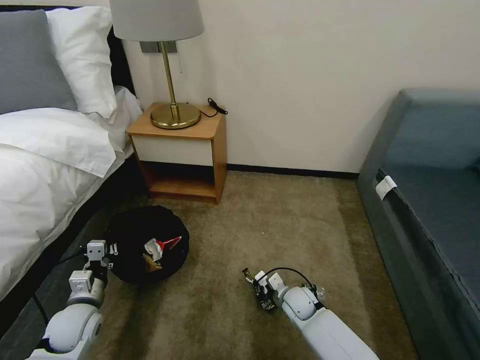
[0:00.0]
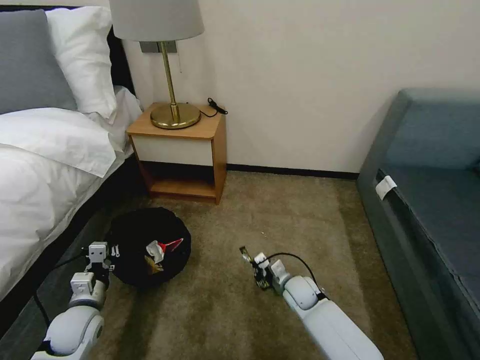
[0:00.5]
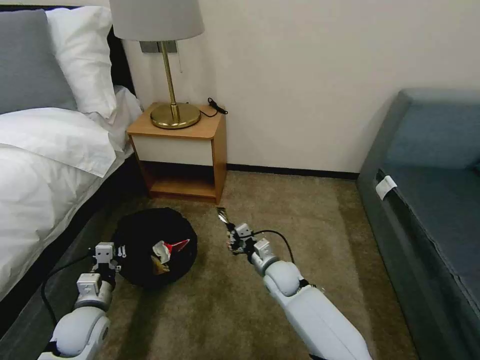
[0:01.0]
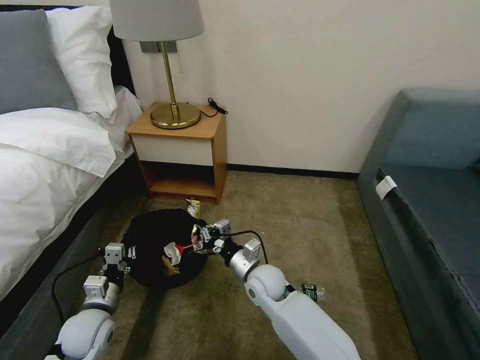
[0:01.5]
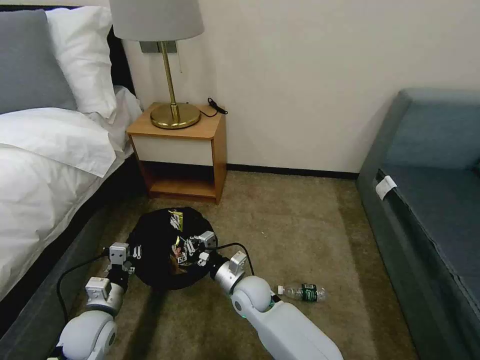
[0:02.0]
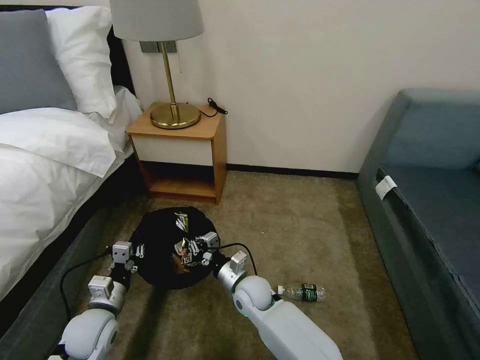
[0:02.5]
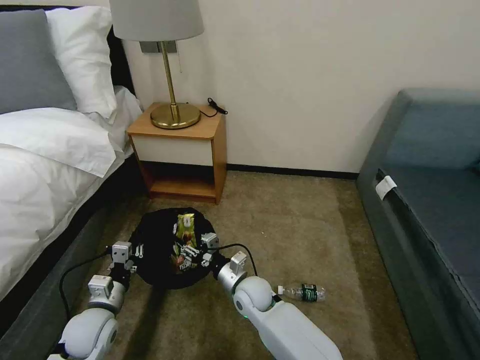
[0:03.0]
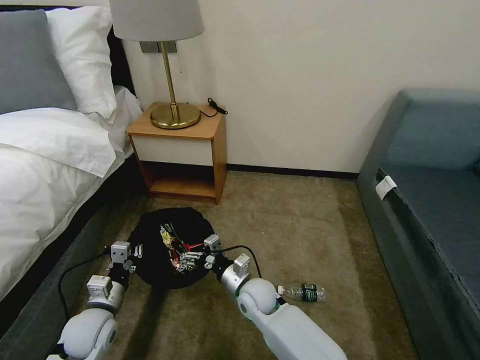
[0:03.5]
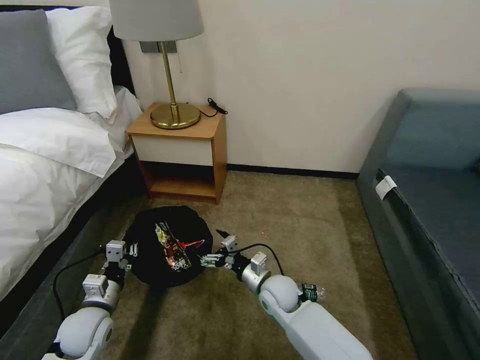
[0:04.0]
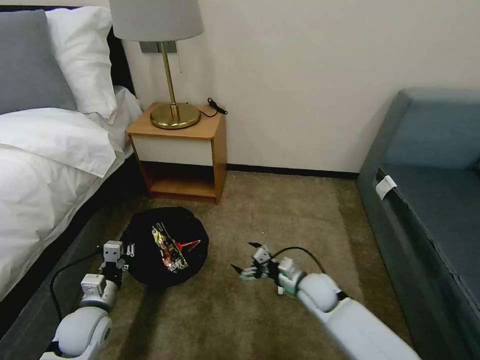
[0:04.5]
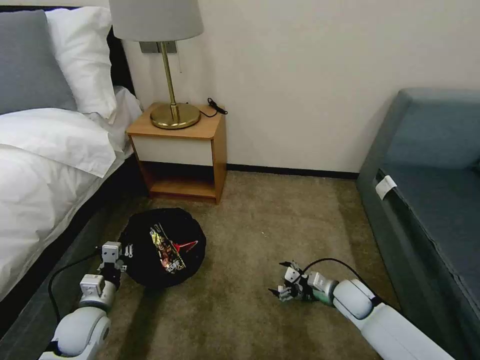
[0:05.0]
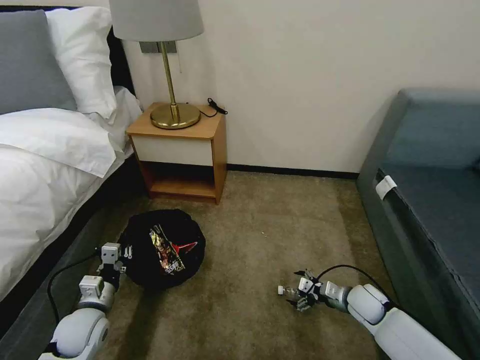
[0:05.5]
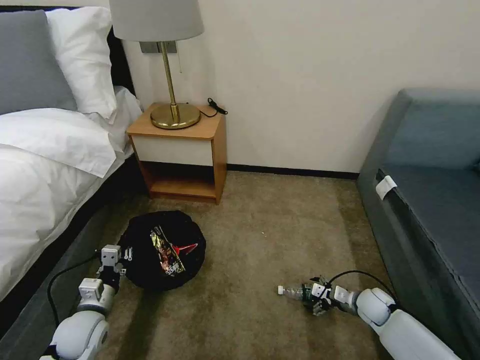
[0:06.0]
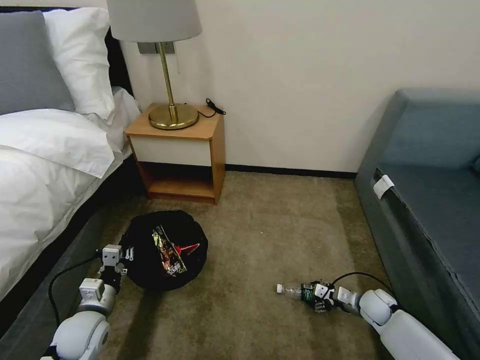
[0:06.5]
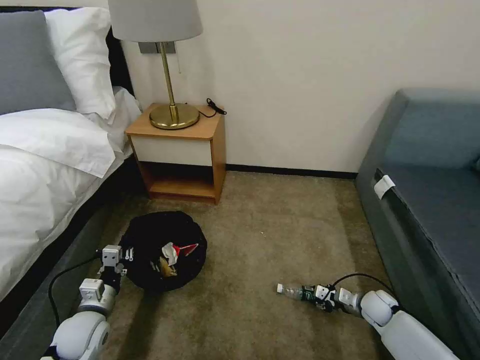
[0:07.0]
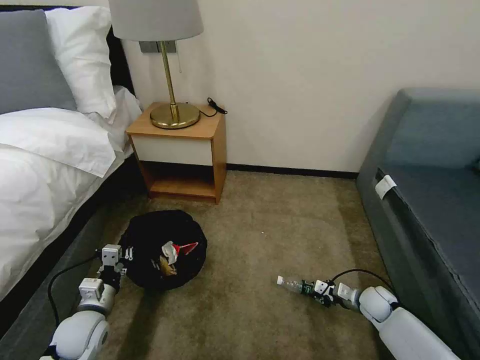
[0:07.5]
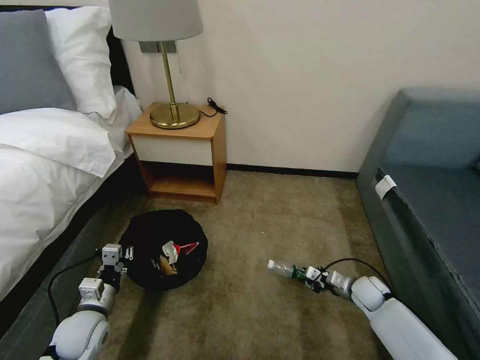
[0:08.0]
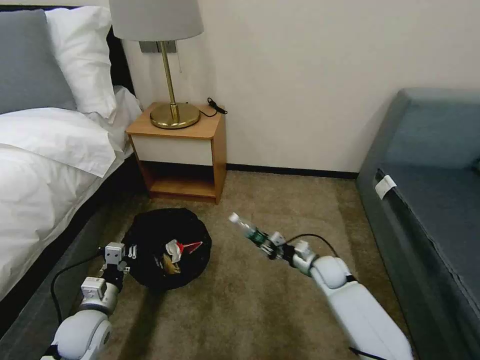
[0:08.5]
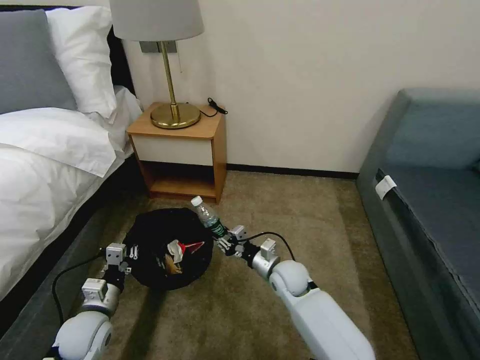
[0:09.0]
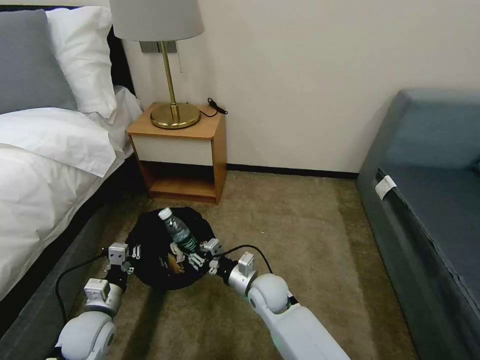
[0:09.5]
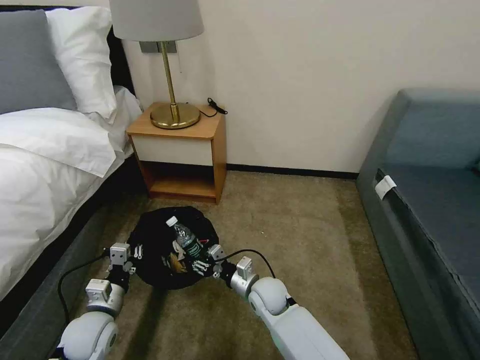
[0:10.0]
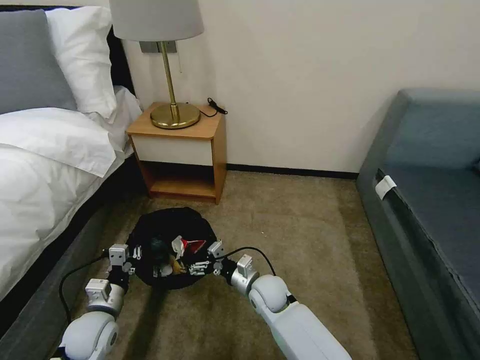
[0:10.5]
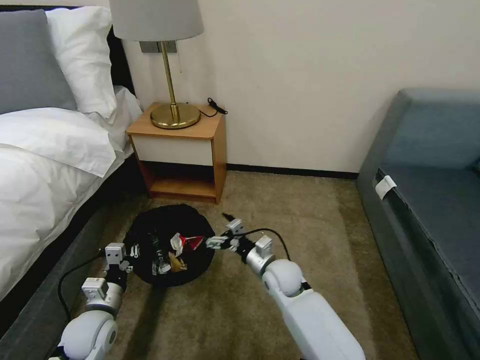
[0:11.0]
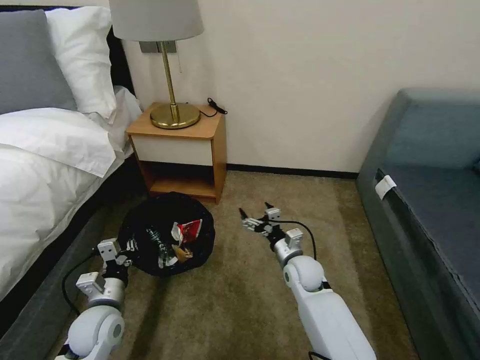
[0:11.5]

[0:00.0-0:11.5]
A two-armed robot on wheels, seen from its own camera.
Task of the whole recording: Pick up the trash bin, then pick up the garbage on the floor and place it into the trash bin.
0:00.0 to 0:02.0: The right gripper shifts approximately 20 cm to the left and upward.
0:02.0 to 0:04.0: The right gripper goes about 5 cm to the right, and opens up.
0:04.0 to 0:06.0: The right gripper travels to the right by some 30 cm.
0:06.0 to 0:07.5: The right gripper closes.
0:07.5 to 0:09.5: The right gripper goes some 35 cm to the left.
0:09.5 to 0:11.5: The right gripper heads to the right, covering about 10 cm, and opens up.

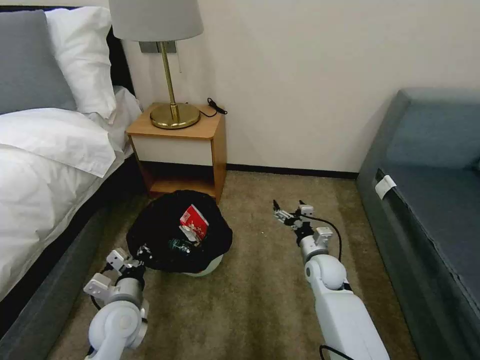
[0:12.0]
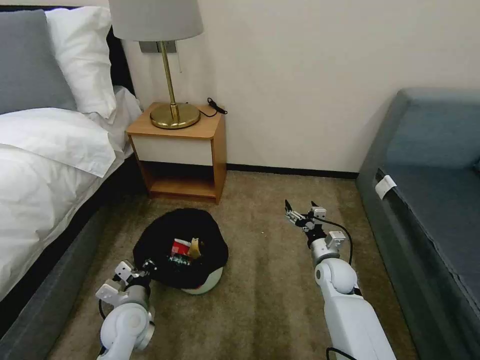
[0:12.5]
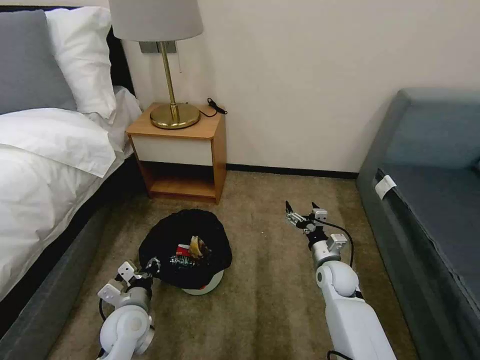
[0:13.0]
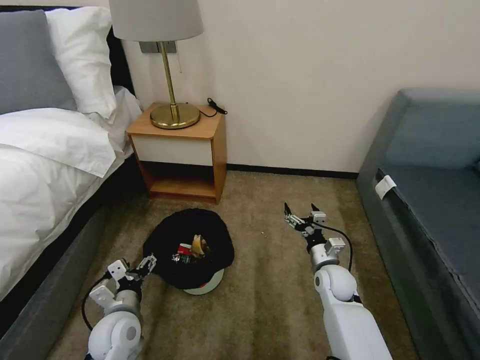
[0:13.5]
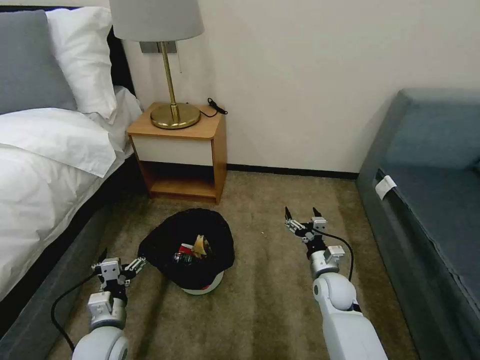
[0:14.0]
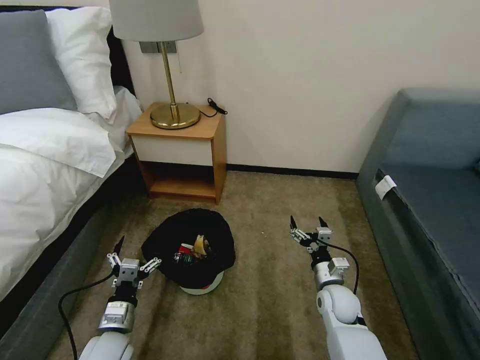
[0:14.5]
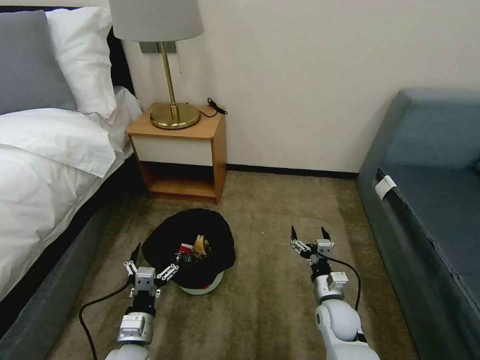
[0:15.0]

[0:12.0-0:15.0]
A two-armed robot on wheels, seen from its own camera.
Task of the whole recording: Pick up the trash bin, then pick up the garbage on the floor and place it into the trash bin.
0:12.0 to 0:13.5: The left gripper opens up.
0:13.5 to 0:15.0: Both grippers move backward, roughly 5 cm.

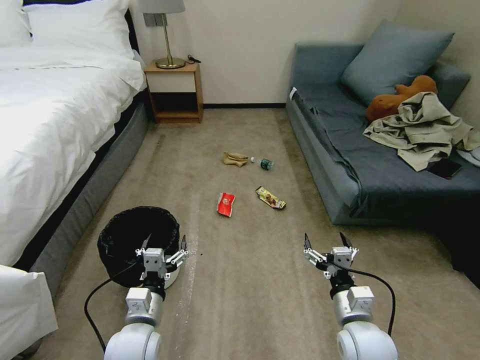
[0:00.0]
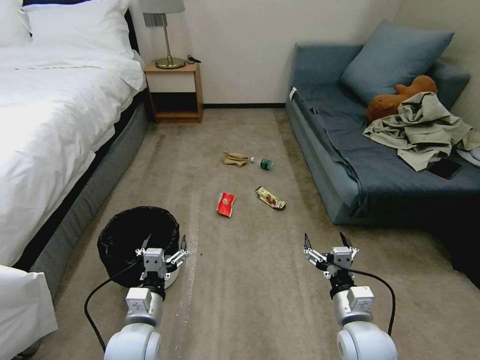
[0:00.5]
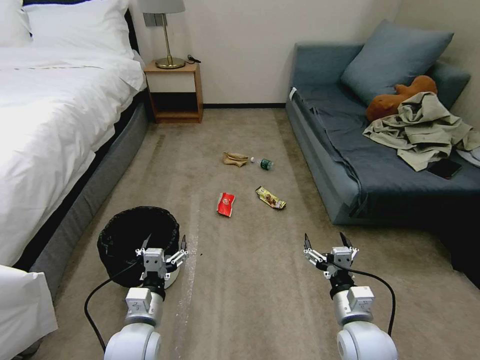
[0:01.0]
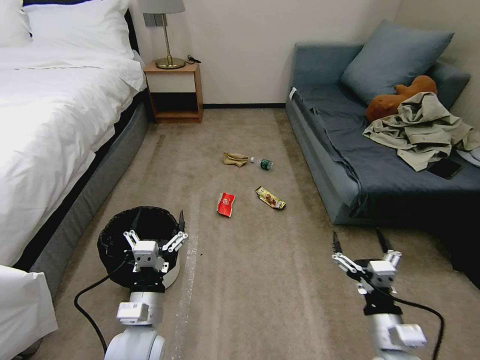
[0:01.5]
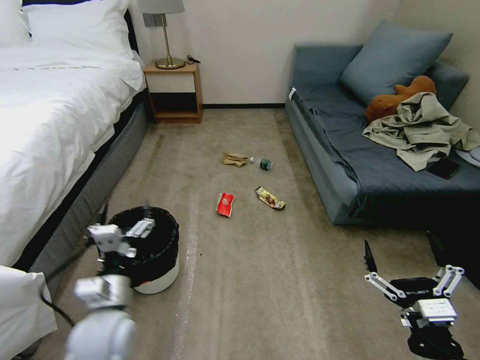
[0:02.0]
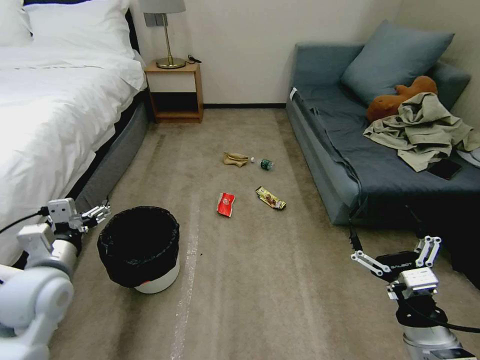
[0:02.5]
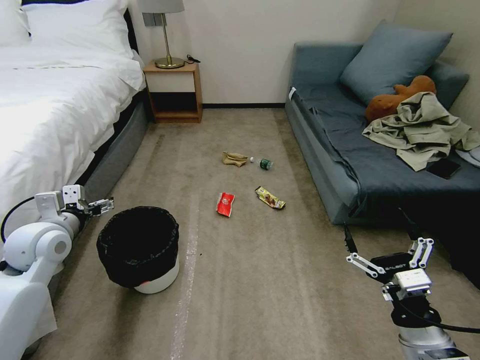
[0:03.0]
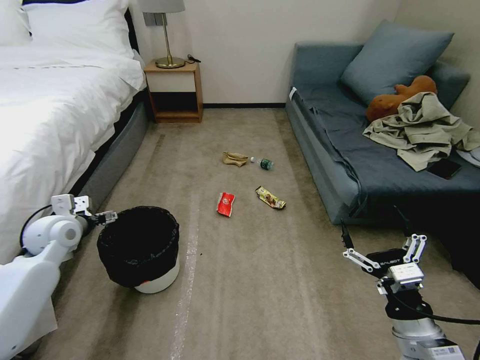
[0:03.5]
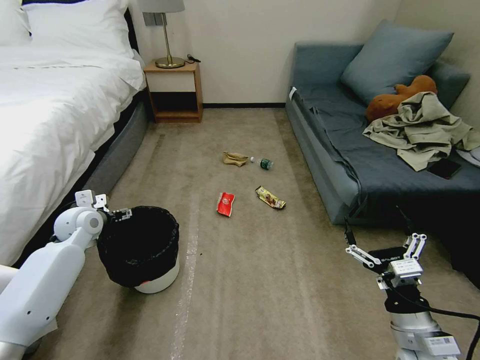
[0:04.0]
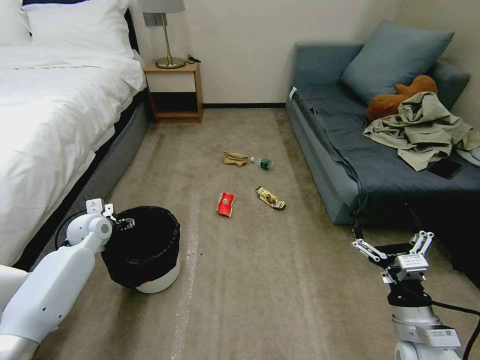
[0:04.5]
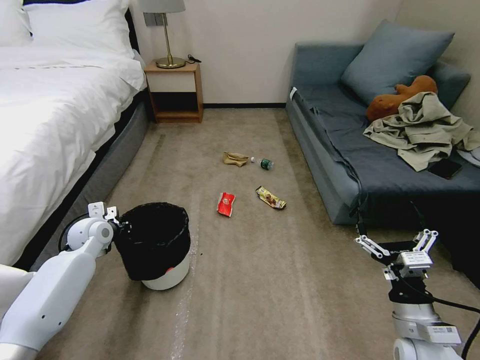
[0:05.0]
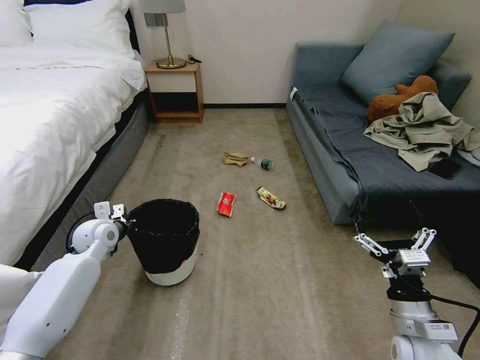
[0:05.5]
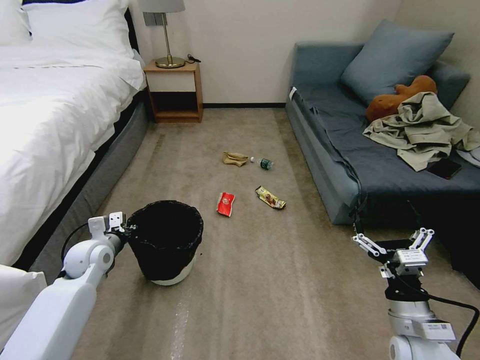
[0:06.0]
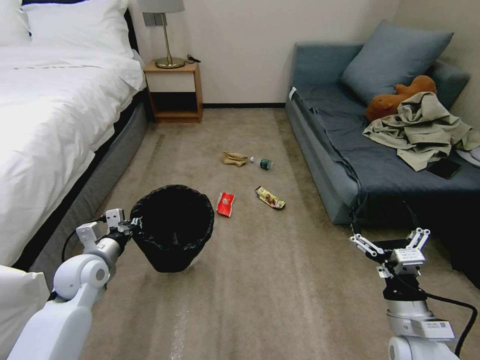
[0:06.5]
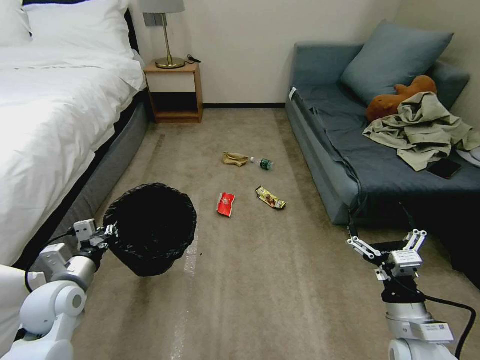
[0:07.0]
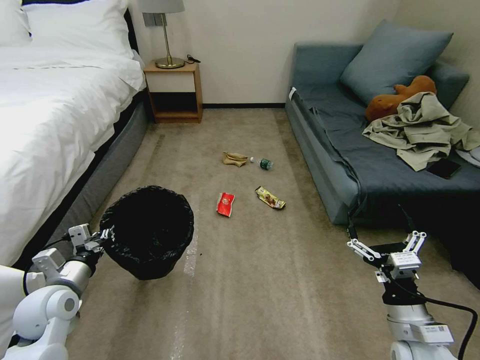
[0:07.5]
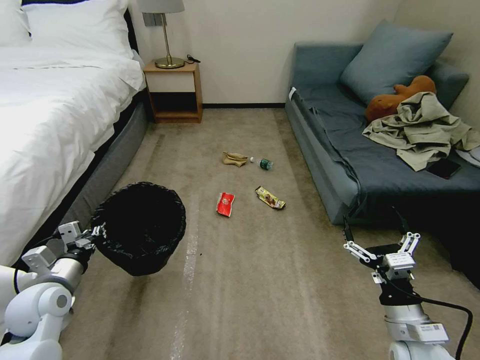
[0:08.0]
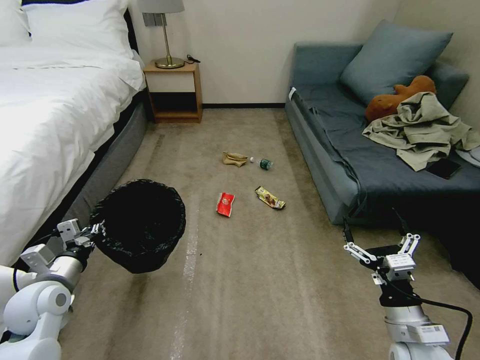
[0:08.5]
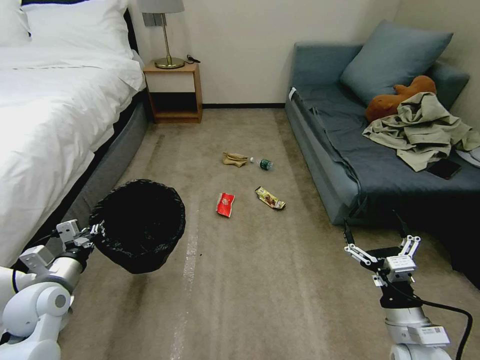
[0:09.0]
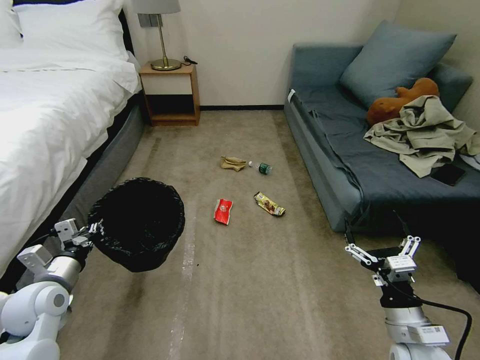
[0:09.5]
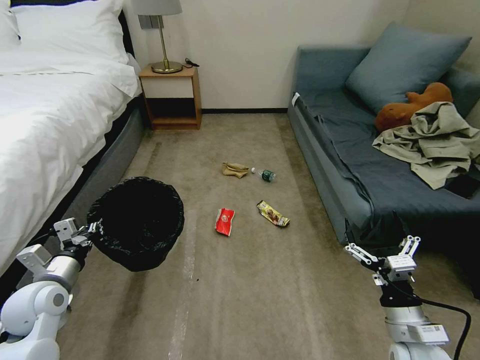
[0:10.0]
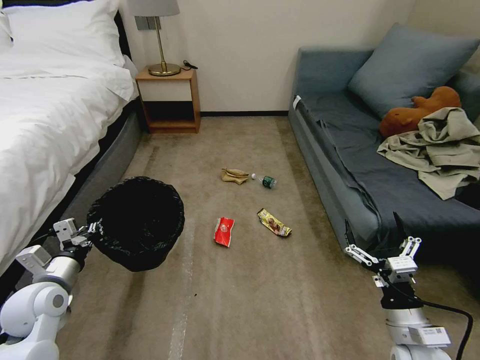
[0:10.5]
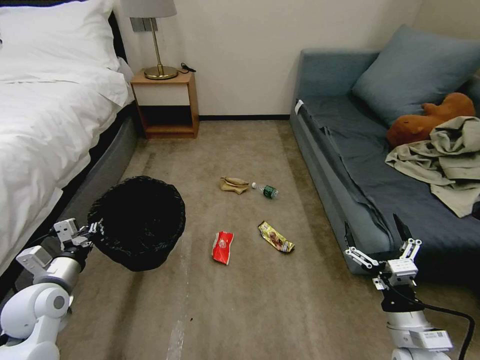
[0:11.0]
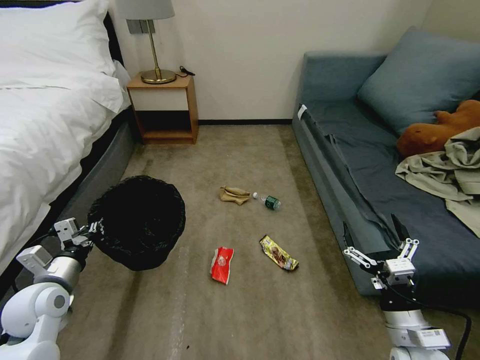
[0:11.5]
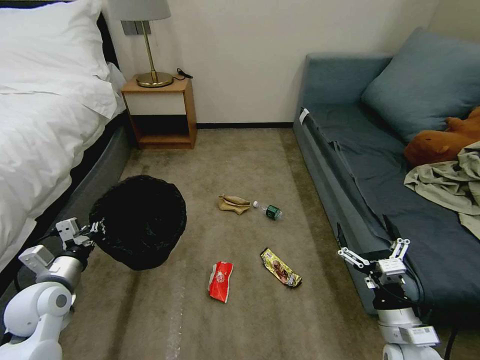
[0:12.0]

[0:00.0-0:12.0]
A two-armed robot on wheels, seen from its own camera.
Task of the whole recording: Pick up the trash bin, then pick up the garbage on the floor and place it into the trash bin.
0:02.0 to 0:04.0: The left gripper heads forward and to the left, covering some 30 cm, while the right gripper travels forward by about 5 cm.
0:04.0 to 0:06.0: The left gripper shifts some 10 cm backward and downward, and closes.
0:06.0 to 0:08.0: The left gripper moves backward, about 10 cm.
